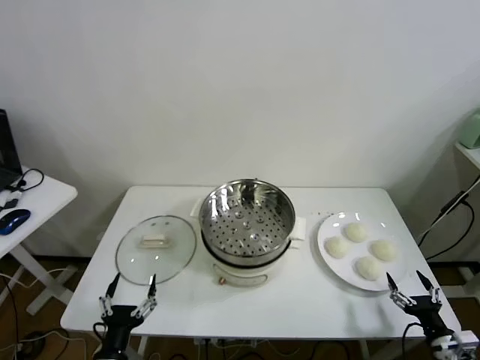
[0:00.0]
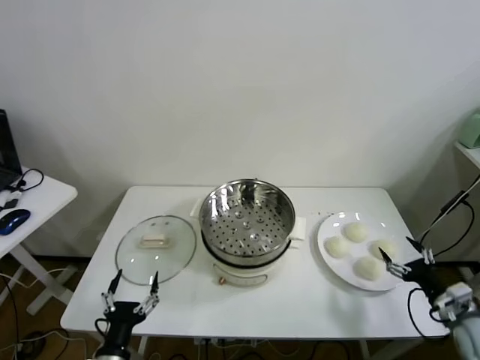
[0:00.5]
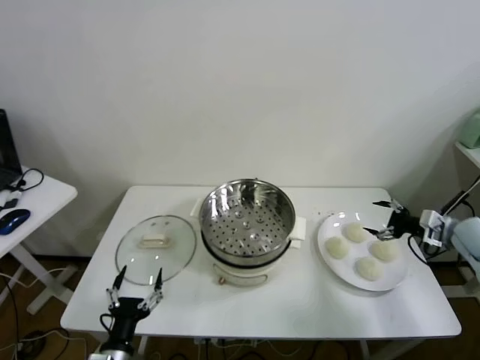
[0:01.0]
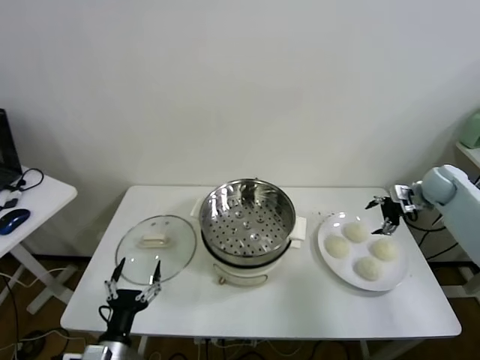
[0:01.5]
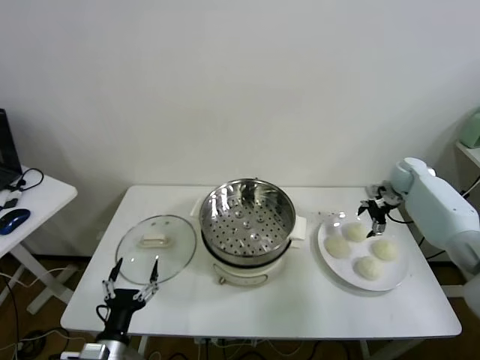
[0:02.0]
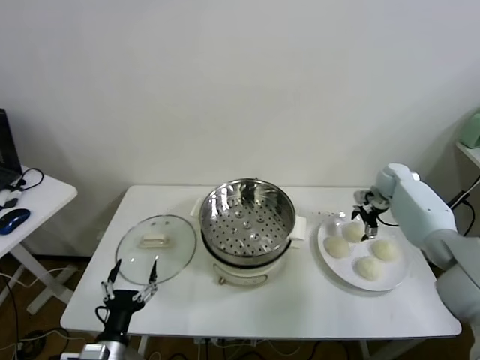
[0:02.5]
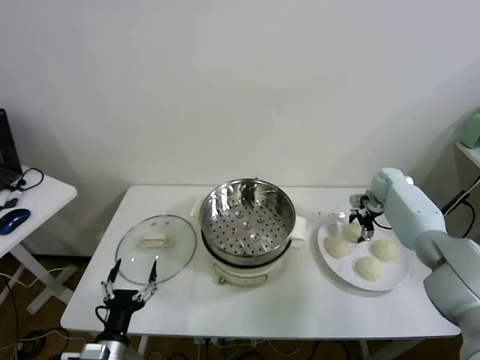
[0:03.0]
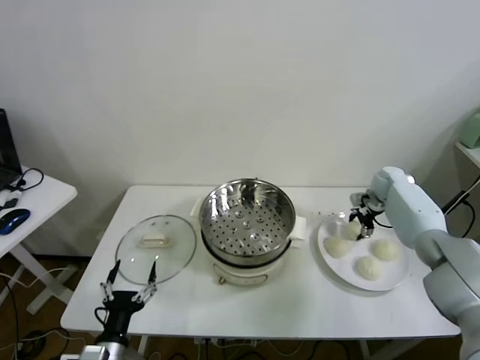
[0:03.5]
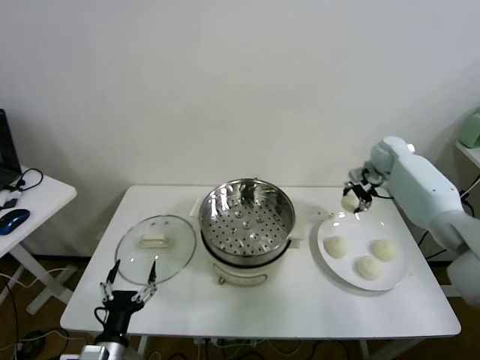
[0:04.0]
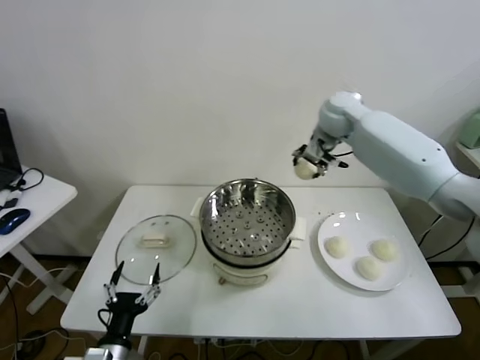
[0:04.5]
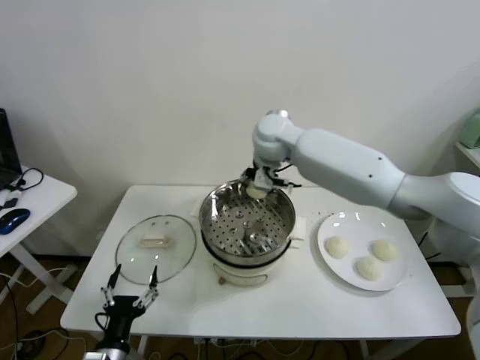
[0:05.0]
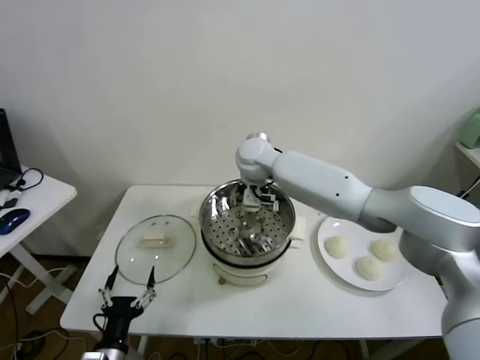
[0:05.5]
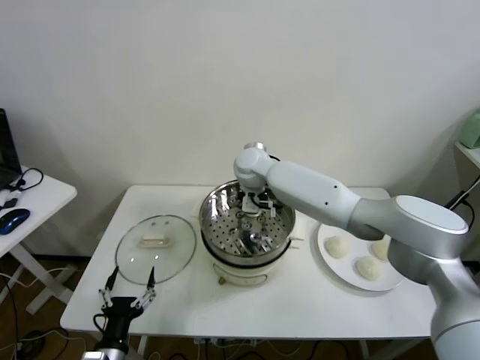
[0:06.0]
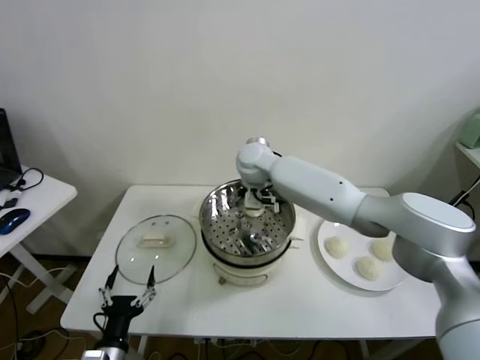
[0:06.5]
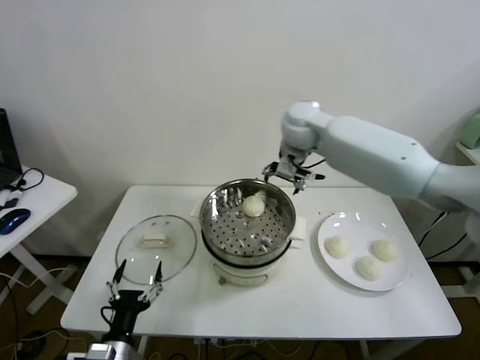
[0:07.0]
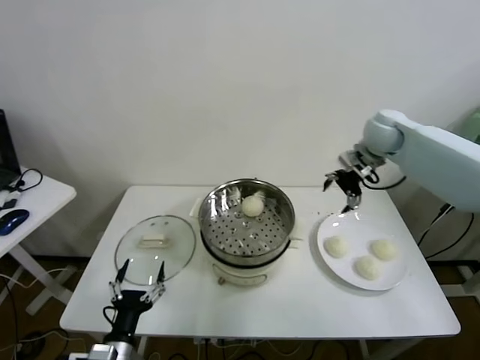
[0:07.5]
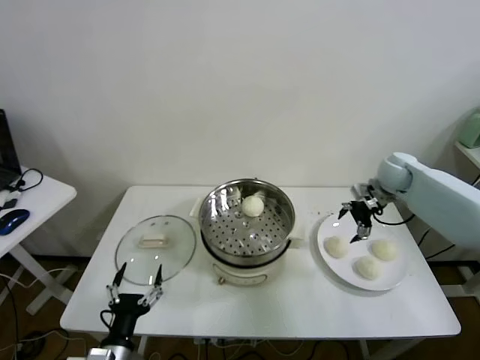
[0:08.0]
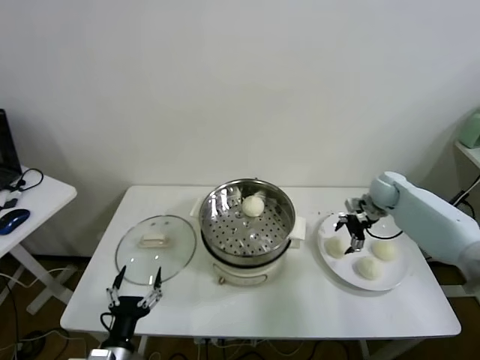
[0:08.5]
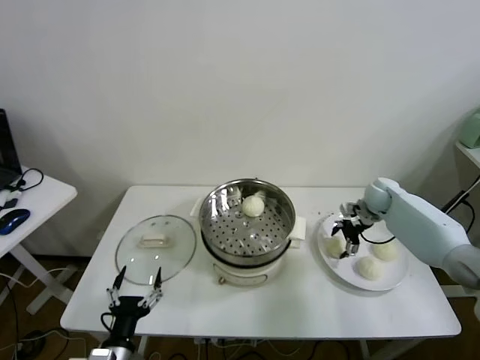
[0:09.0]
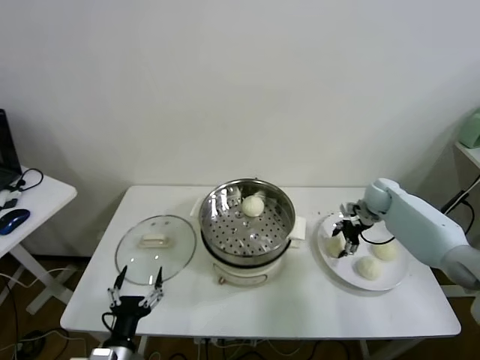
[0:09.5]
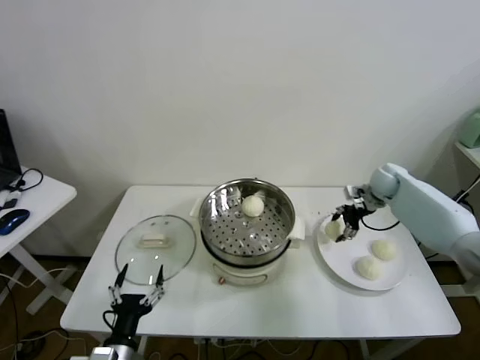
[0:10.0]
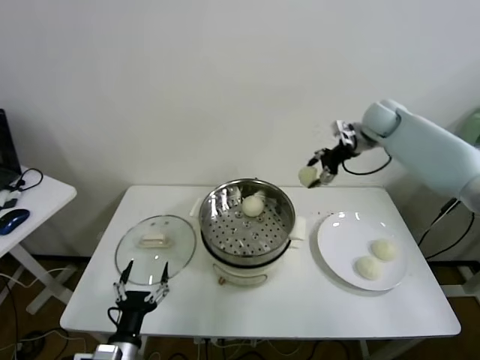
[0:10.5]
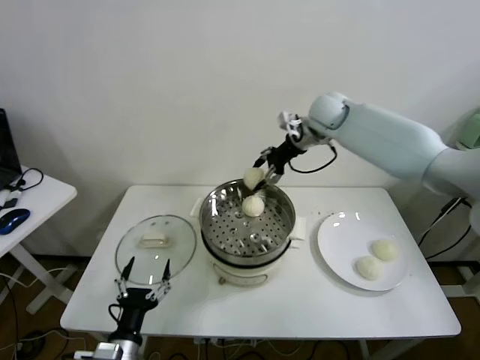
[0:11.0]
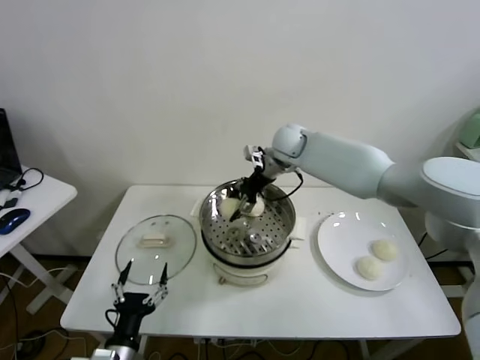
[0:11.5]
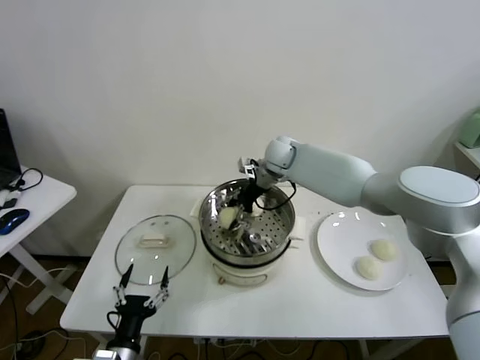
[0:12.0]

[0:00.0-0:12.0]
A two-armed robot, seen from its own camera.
Task of the whole recording: take steamed baozi put them in steamer.
Step, 0:00.0 to 0:03.0: Grasp the baozi in the plate with right gripper.
Step, 0:04.0 to 0:06.0: Place the baozi on the steamer with right gripper.
Step, 0:06.5 to 0:09.0: Grasp the baozi in the plate with right gripper.
0:02.0 to 0:04.0: The right gripper goes roughly 10 cm upward and to the left, and closes.
0:04.0 to 0:06.0: The right gripper is displaced to the left by some 35 cm, and opens up.
0:06.0 to 0:08.0: The right gripper is displaced to the right by about 35 cm, and opens up.
0:08.0 to 0:10.0: The right gripper travels downward and back again, approximately 10 cm each way, and closes up.
0:10.0 to 0:12.0: The right gripper travels to the left by approximately 30 cm.

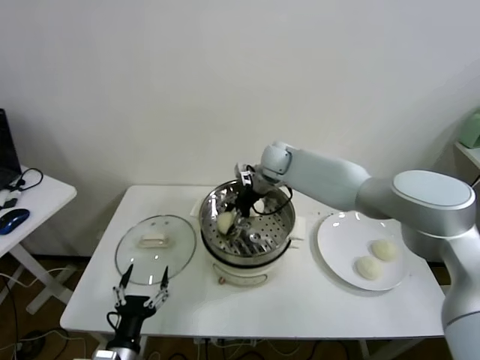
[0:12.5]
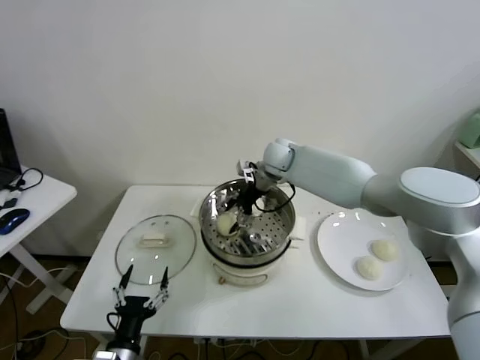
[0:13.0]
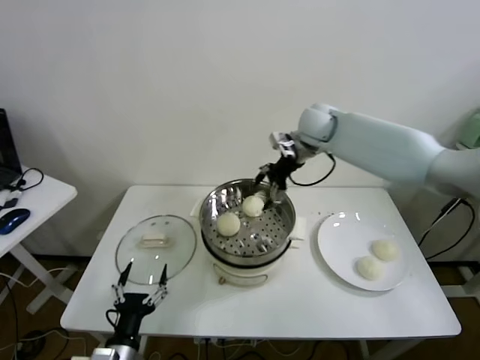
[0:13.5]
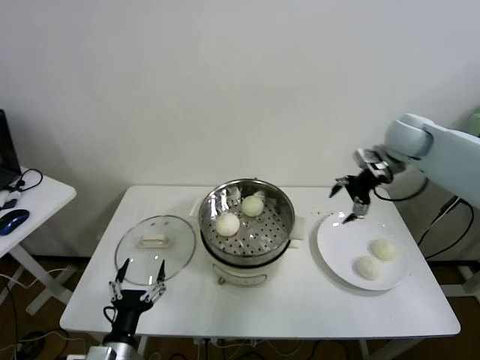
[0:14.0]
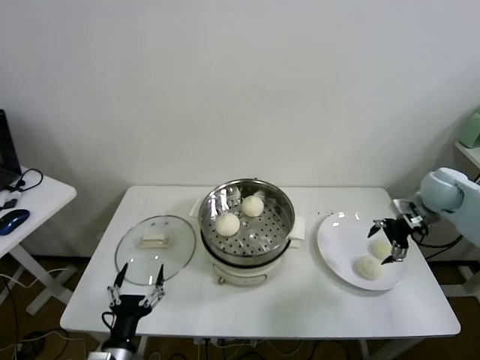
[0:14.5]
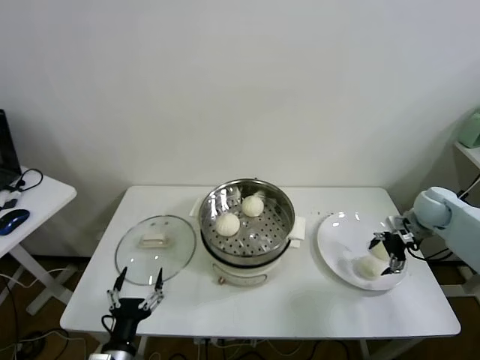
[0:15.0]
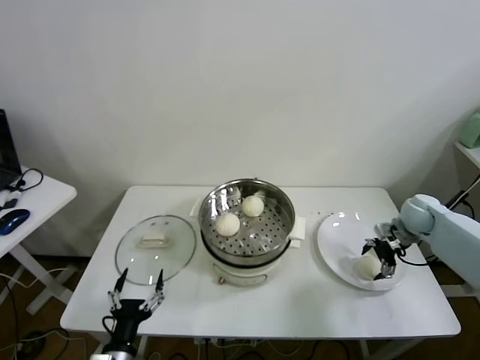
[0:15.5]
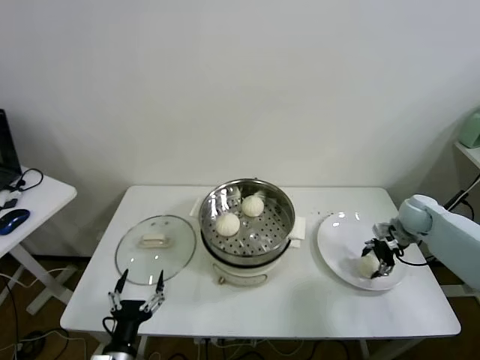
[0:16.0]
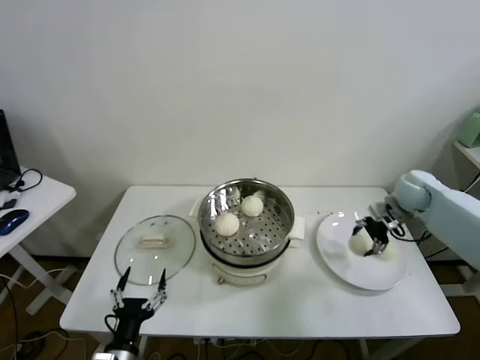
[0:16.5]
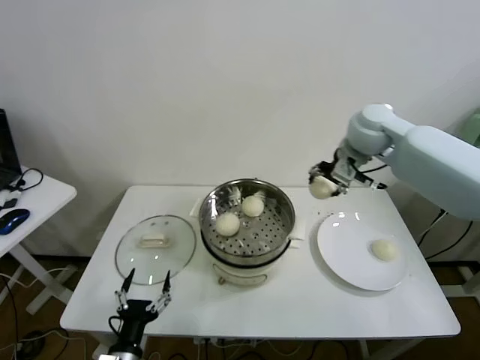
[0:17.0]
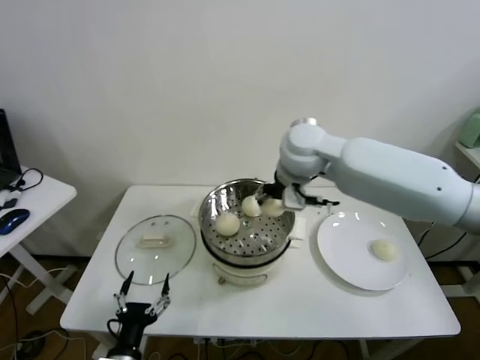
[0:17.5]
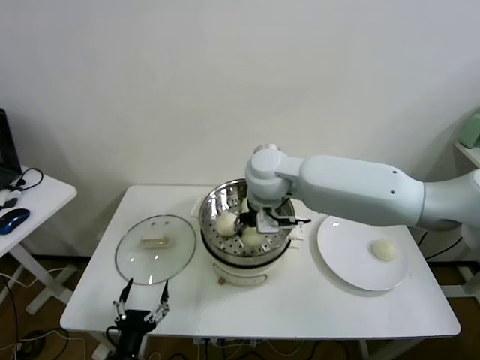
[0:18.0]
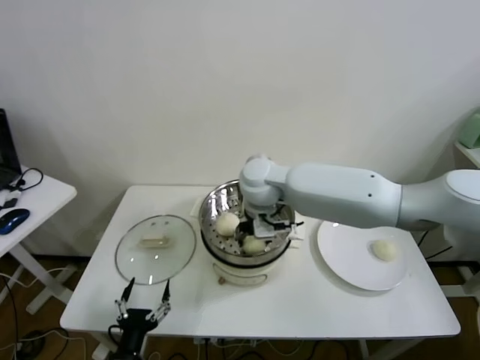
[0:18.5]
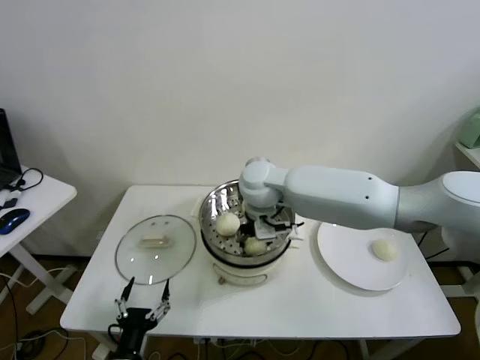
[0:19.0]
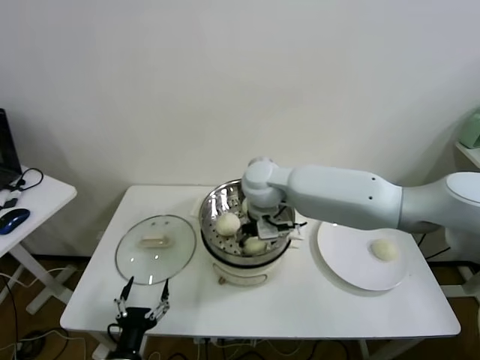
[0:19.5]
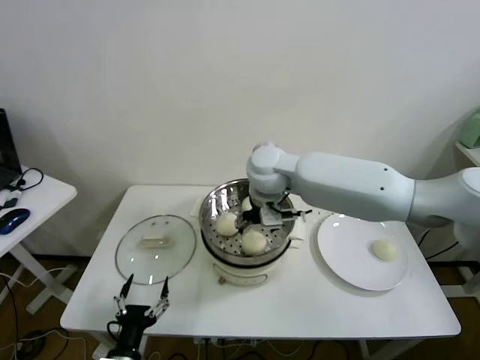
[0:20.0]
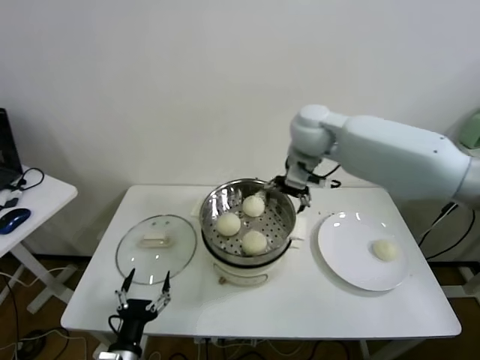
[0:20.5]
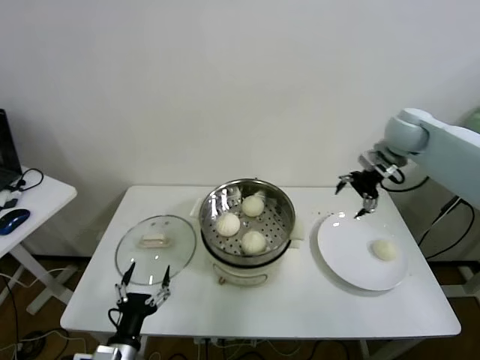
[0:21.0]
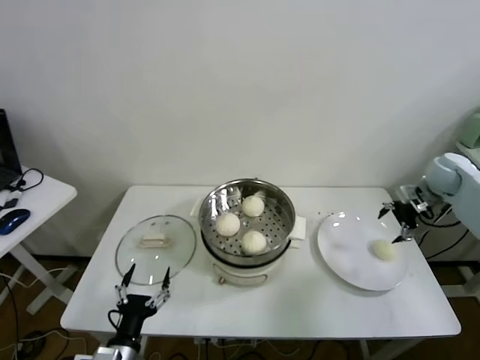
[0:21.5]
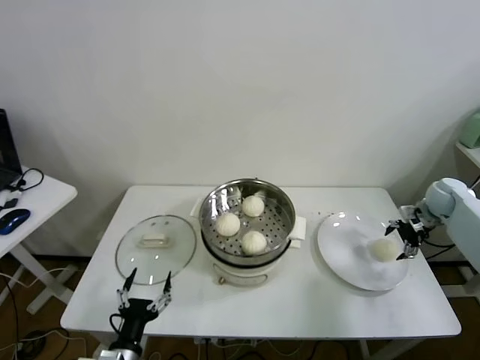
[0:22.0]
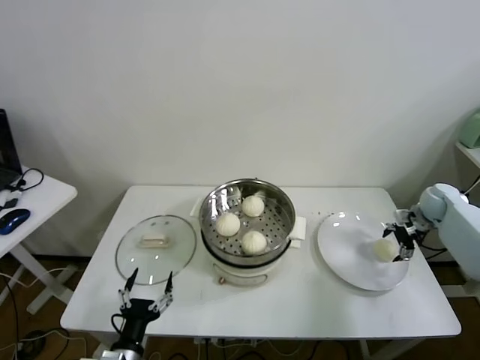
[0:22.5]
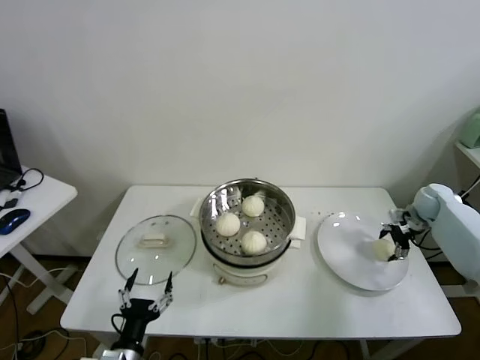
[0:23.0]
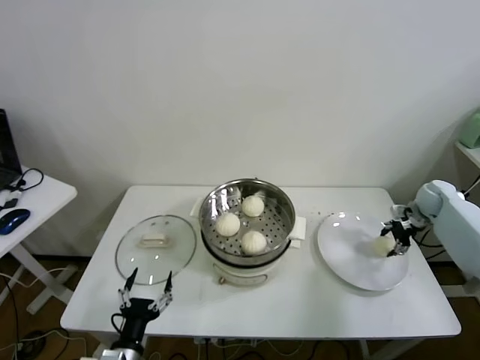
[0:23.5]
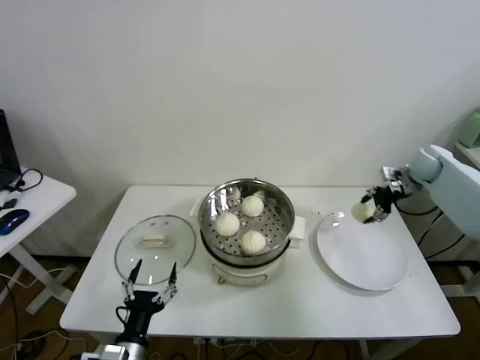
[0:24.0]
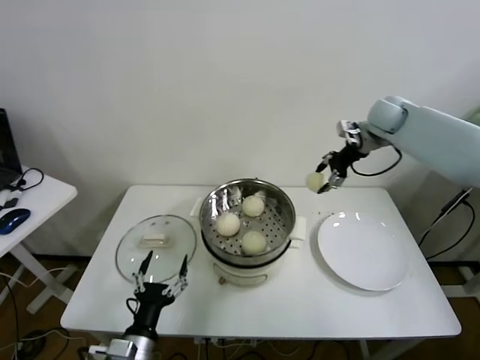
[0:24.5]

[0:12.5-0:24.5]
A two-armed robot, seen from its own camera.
Task of the whole recording: take steamed baozi put them in steamer.
Step, 0:13.0 to 0:15.5: Grasp the baozi in the plate with right gripper.
Step, 0:16.0 to 0:19.5: Place the baozi on the steamer with right gripper.
Step, 0:20.0 to 0:23.0: Grasp the baozi in the plate with right gripper.
0:12.5 to 0:14.5: The right gripper goes approximately 35 cm to the right, and opens its fingers.
0:14.5 to 0:16.5: The right gripper reaches some 10 cm downward, then returns, and closes its fingers.
0:16.5 to 0:18.5: The right gripper goes about 40 cm to the left.
0:18.5 to 0:20.5: The right gripper shifts about 15 cm to the right, upward and forward, and opens.
0:20.5 to 0:22.5: The right gripper heads to the right and downward, covering some 40 cm.
0:22.5 to 0:24.5: The right gripper moves upward, to the left and forward, roughly 30 cm, and closes up.

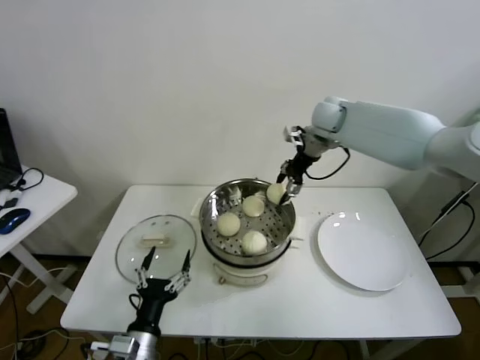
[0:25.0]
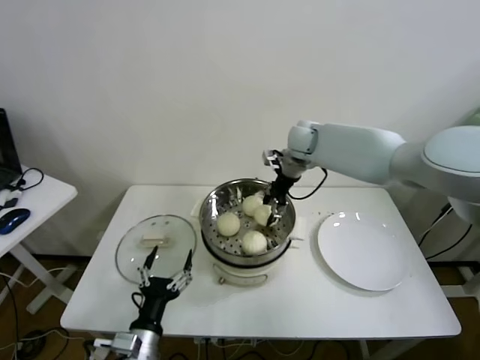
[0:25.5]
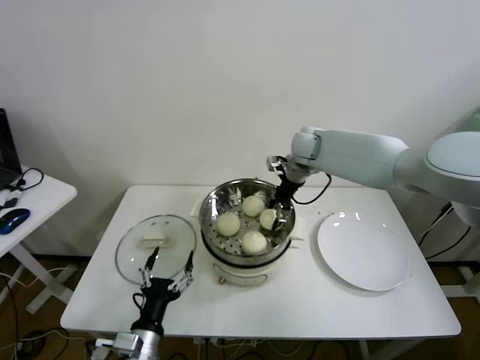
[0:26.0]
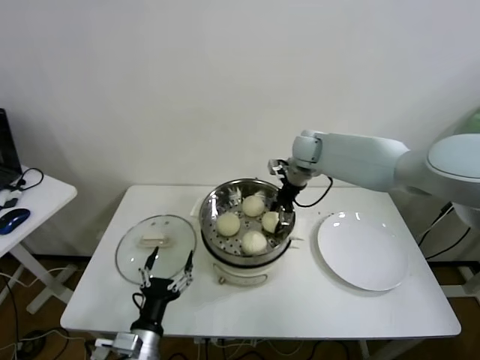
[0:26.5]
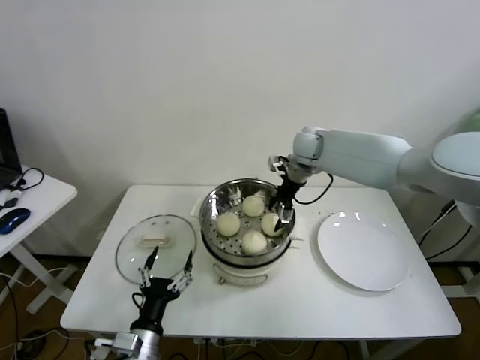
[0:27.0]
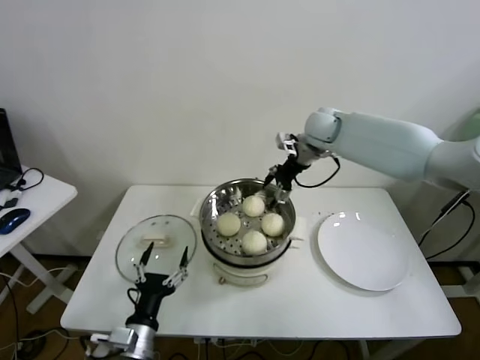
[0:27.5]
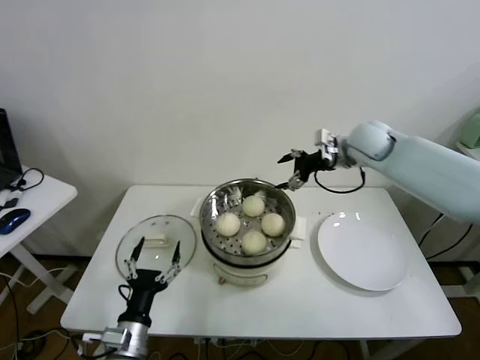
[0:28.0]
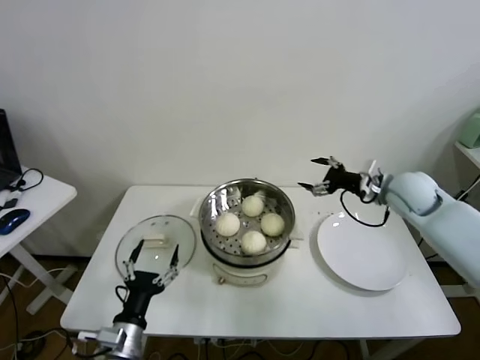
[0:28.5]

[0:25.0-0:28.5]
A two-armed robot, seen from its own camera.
Task of the whole recording: take steamed baozi put them in steamer.
Step, 0:25.0 to 0:27.0: Place the baozi on the steamer with right gripper.
0:25.0 to 0:27.0: The right gripper shifts about 10 cm downward, and opens.
0:27.0 to 0:28.5: The right gripper is displaced to the right and backward by approximately 25 cm.
